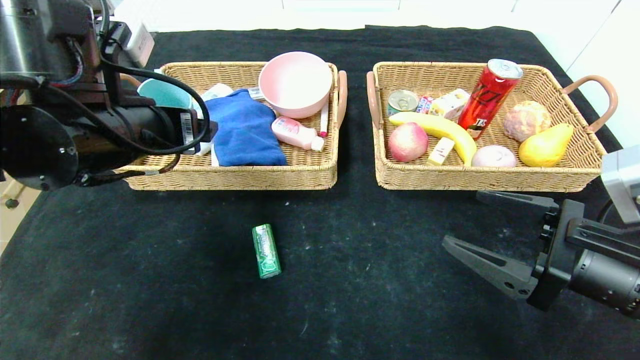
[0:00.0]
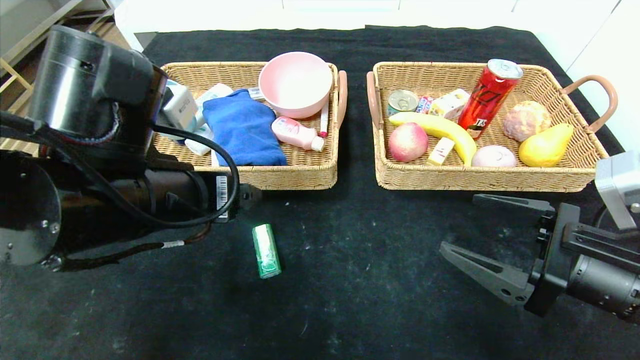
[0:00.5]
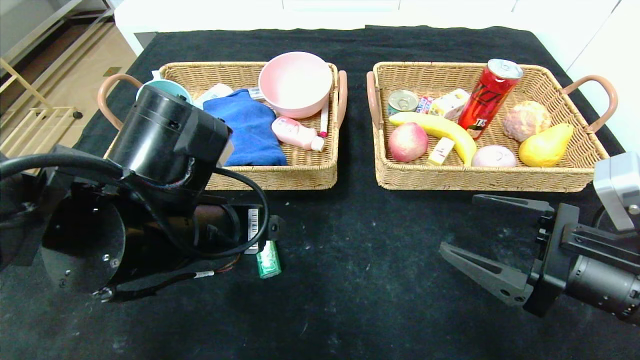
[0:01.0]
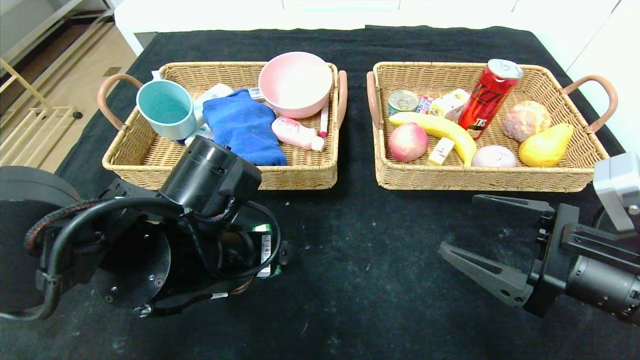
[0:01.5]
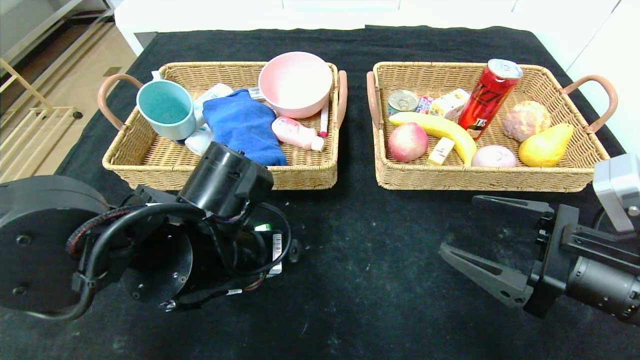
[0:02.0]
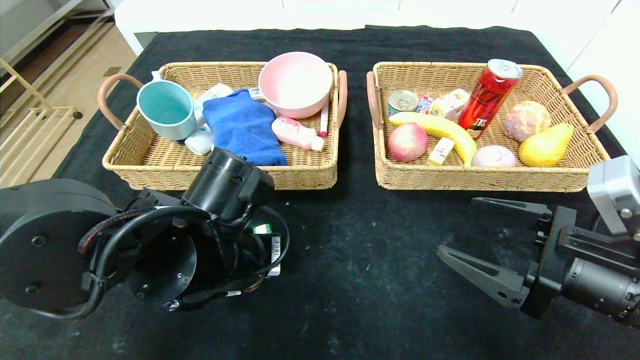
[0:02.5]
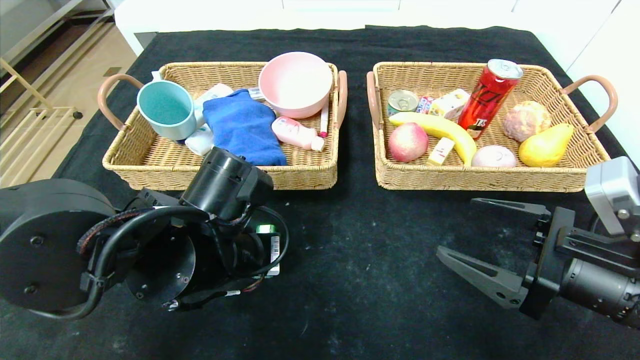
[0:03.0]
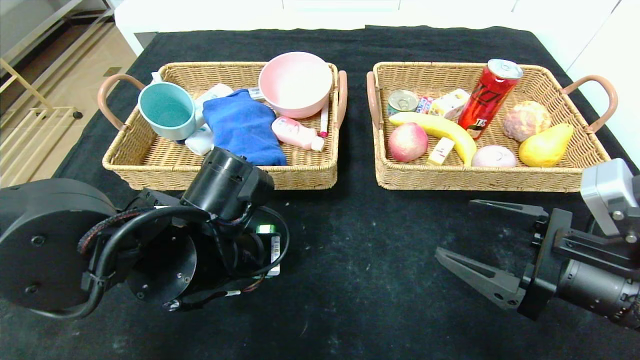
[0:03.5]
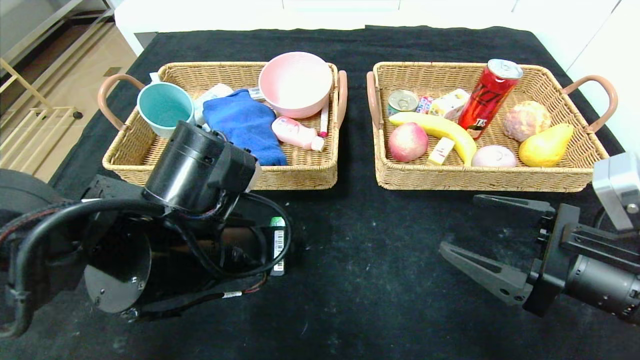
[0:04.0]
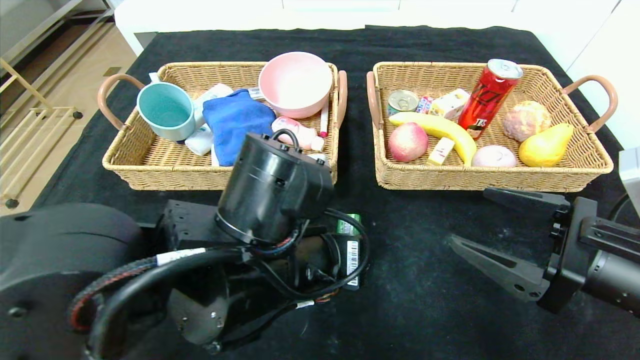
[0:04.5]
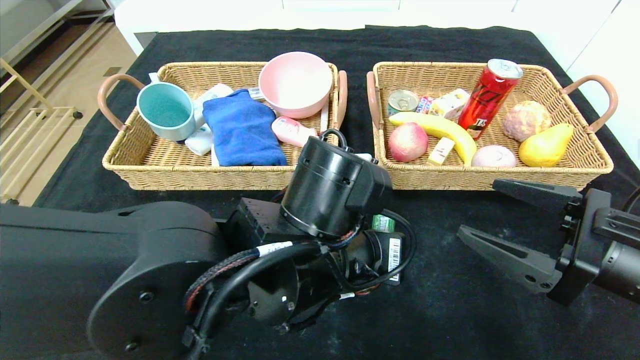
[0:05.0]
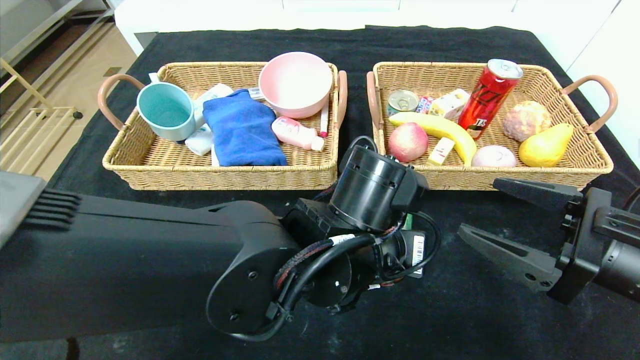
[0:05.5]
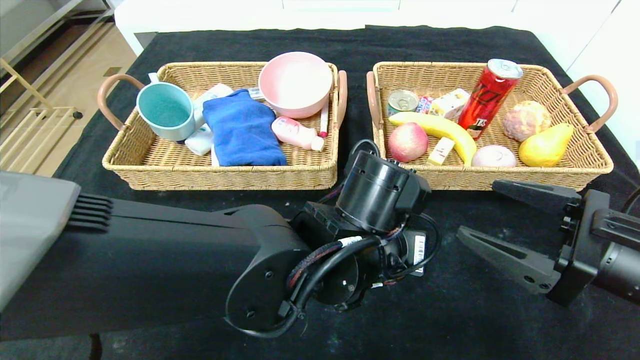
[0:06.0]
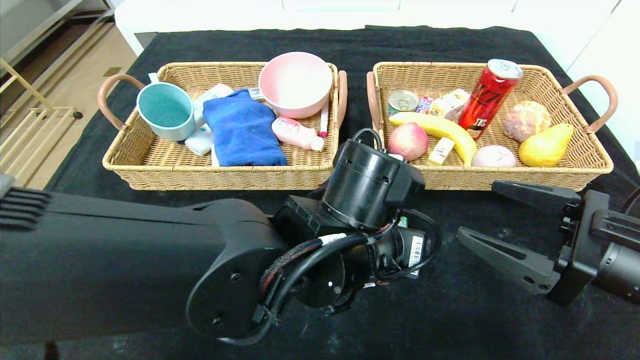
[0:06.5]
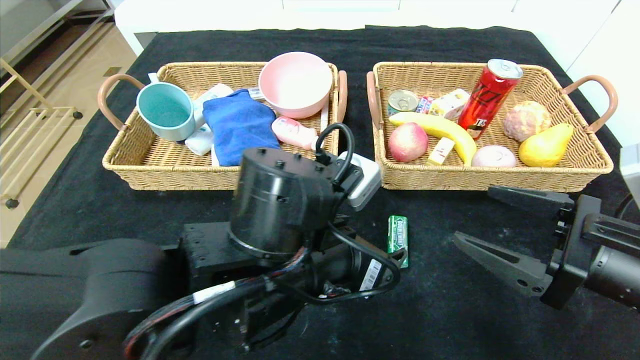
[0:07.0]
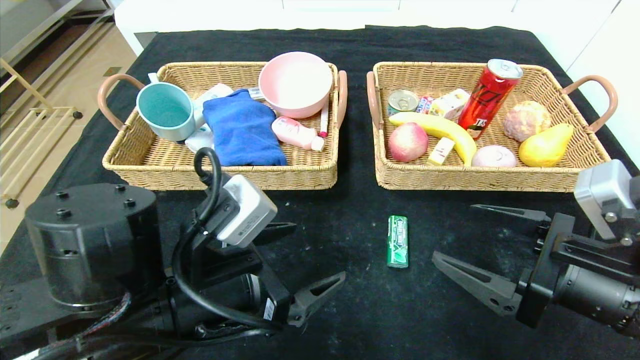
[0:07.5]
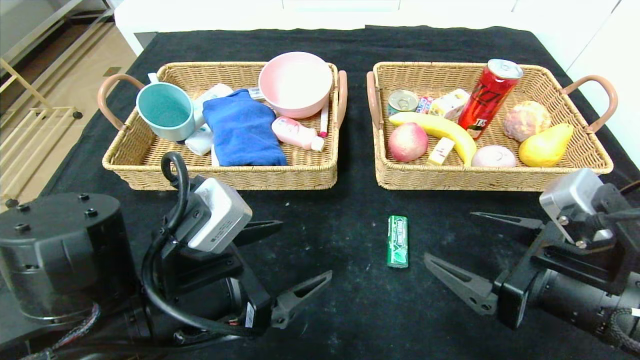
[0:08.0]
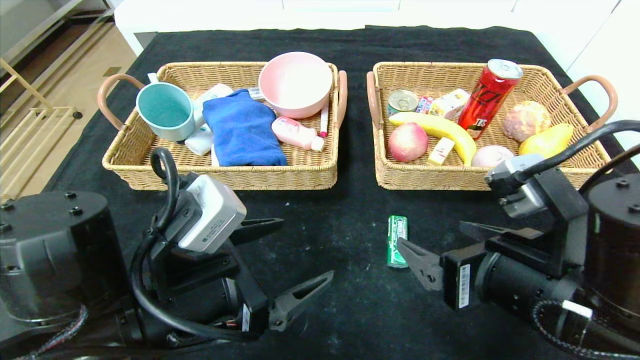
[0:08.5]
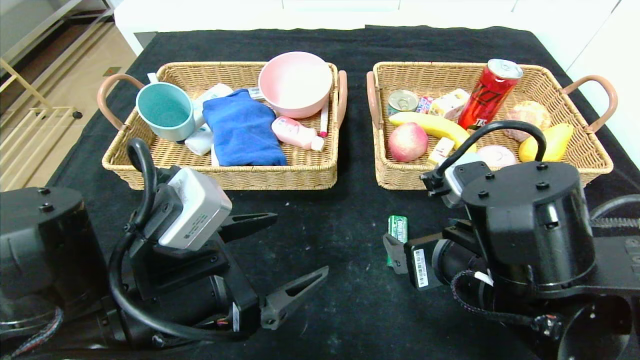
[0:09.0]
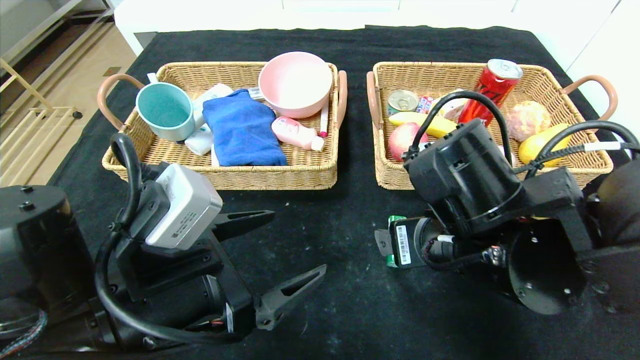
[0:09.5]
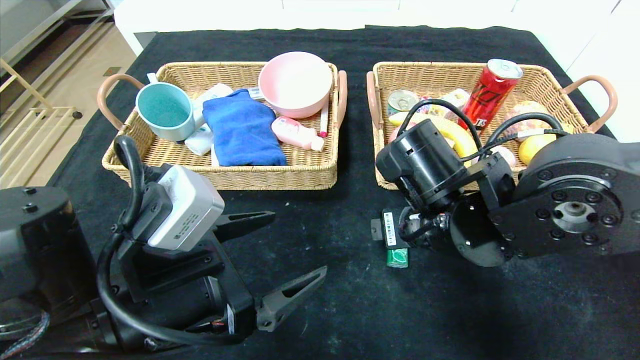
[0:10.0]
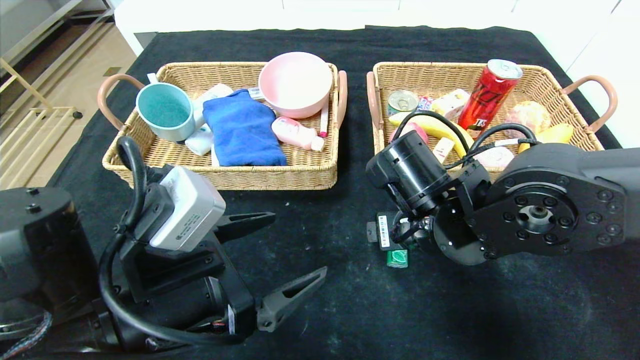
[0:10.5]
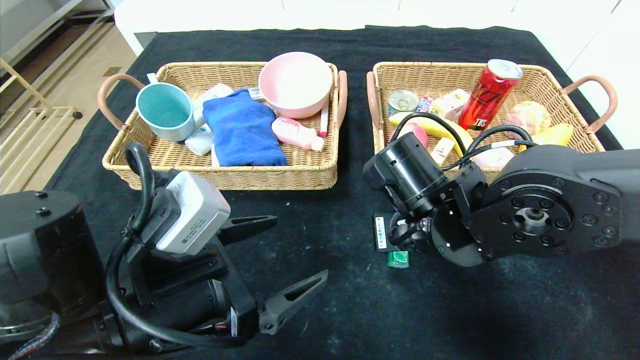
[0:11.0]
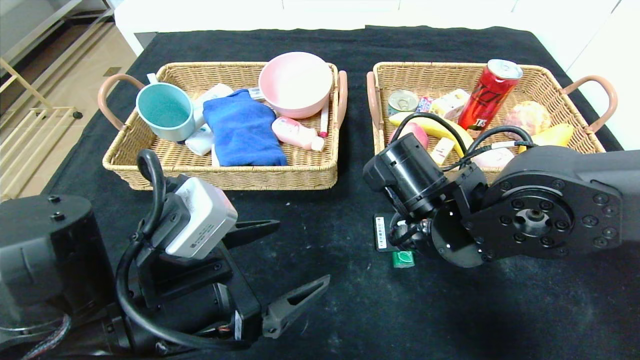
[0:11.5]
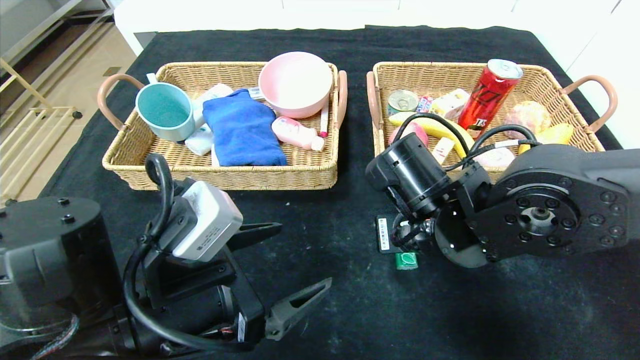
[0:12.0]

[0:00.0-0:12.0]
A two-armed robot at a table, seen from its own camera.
Step, 0:00.0 to 0:06.0: Place the green chewing gum in the center of the table.
0:00.0 to 0:02.0: The left gripper heads downward and to the right, covering approximately 15 cm.
0:02.0 to 0:04.0: The left gripper closes up.
0:04.0 to 0:06.0: The left gripper heads to the right, covering approximately 15 cm.
0:06.0 to 0:08.0: The left gripper shifts roughly 15 cm to the left, and opens.
0:08.0 to 0:10.0: The right gripper goes some 15 cm to the left and forward.
0:10.0 to 0:12.0: The right gripper closes up.

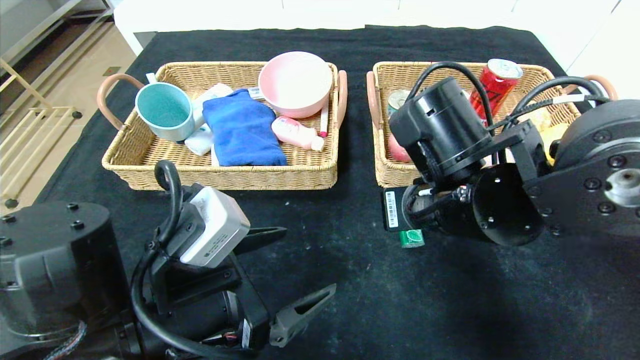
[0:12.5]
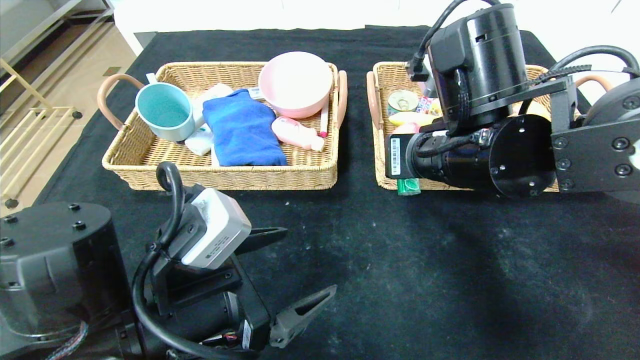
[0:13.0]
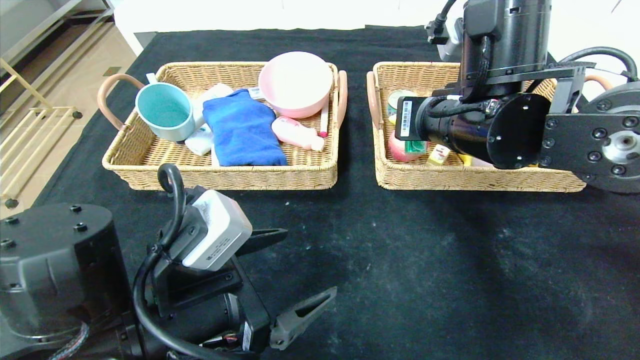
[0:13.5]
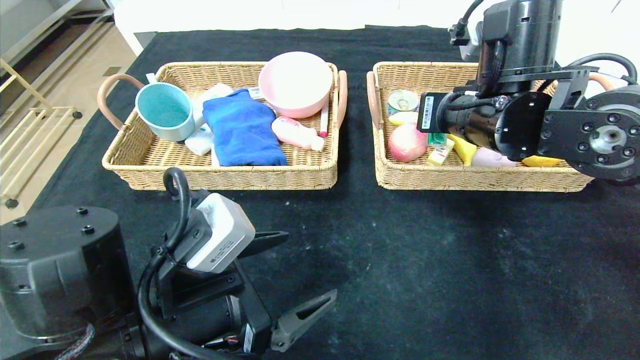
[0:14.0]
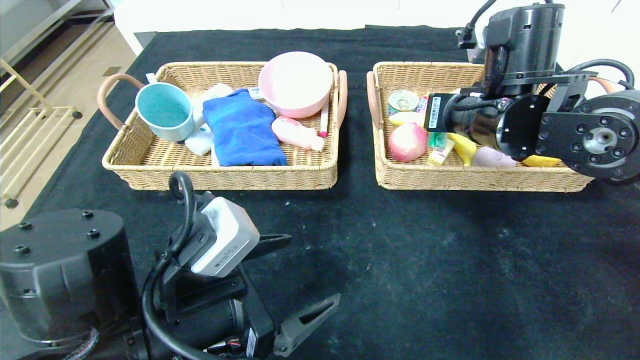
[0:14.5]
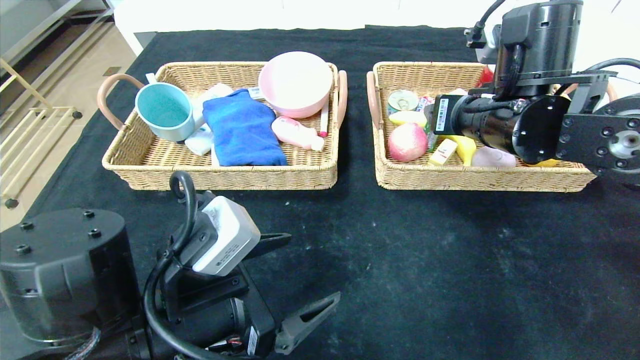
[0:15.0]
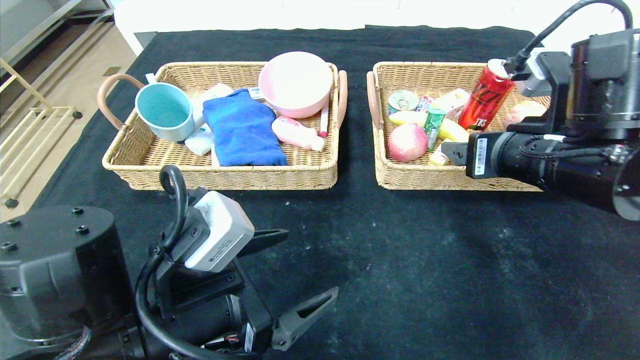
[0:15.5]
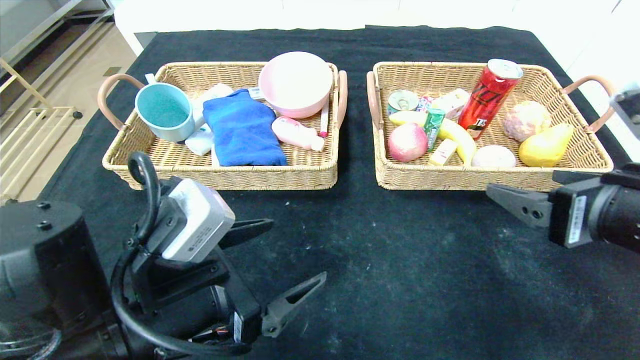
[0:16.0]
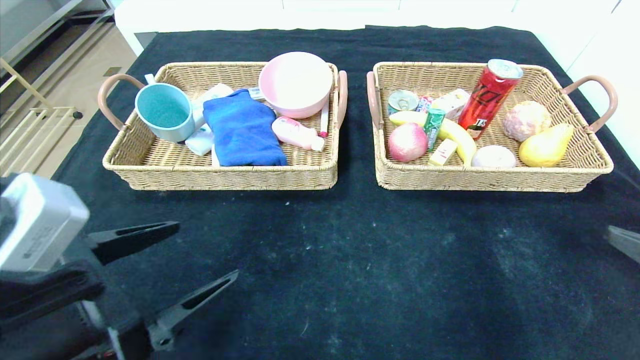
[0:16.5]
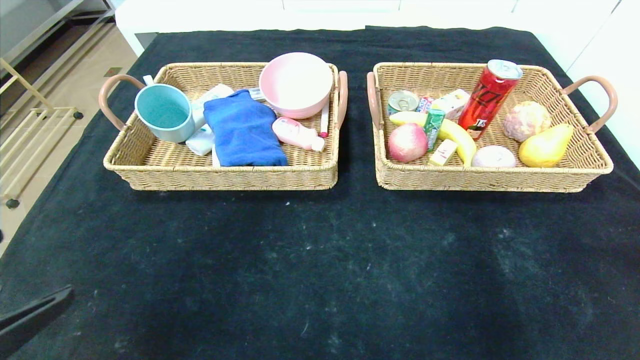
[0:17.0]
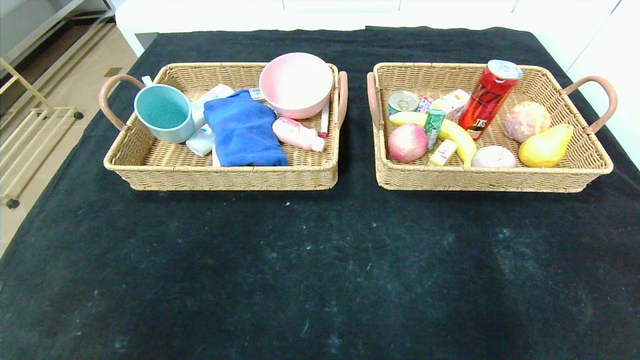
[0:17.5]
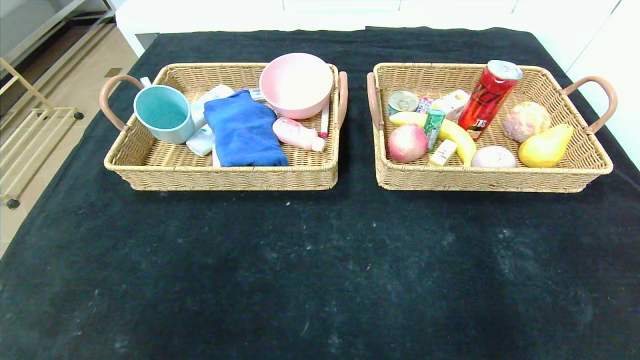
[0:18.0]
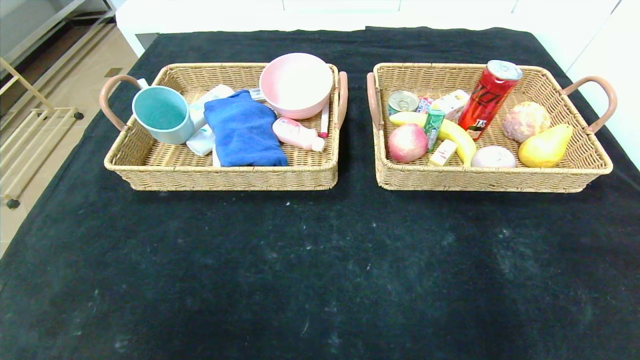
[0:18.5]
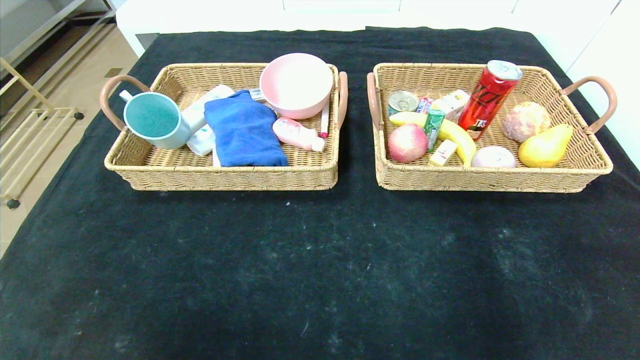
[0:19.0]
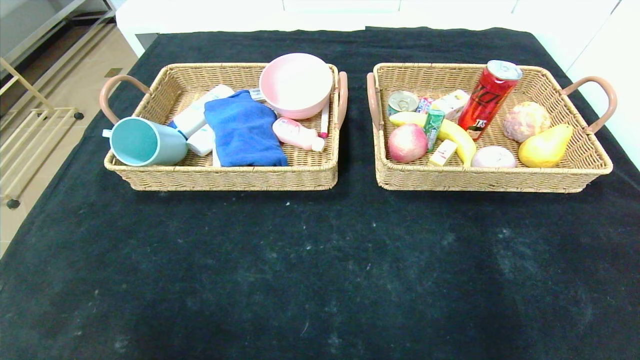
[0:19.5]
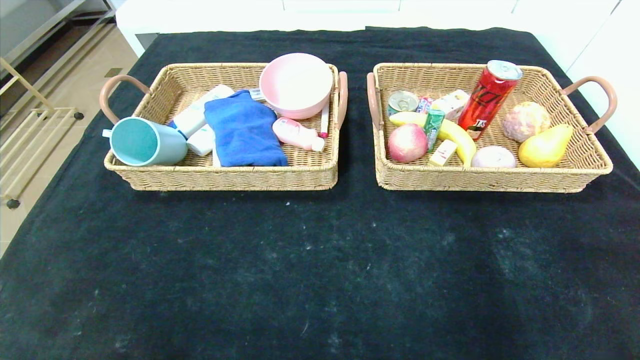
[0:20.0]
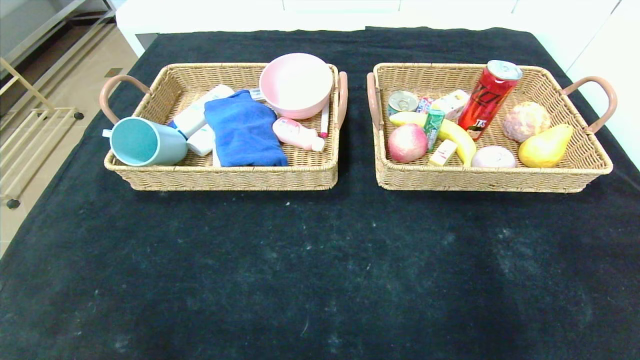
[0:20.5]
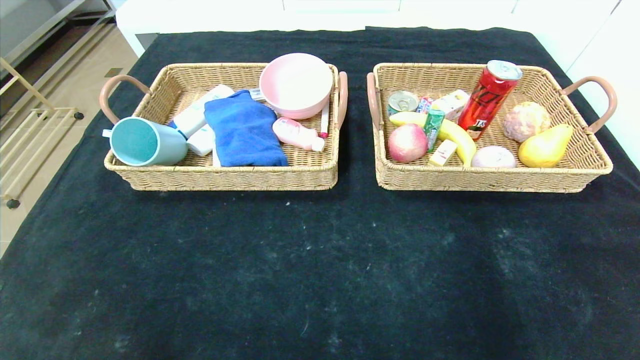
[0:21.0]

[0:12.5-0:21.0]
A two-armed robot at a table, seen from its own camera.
Step, 0:12.5 to 0:14.5: Grasp the green chewing gum and put it in the right basket.
0:12.5 to 0:14.5: The right gripper is displaced forward and to the right by some 10 cm.
0:14.5 to 0:16.5: The right gripper is displaced backward and to the right by roughly 30 cm, and opens. Meanwhile the left gripper heads to the left, covering approximately 5 cm.
0:16.5 to 0:19.0: The left gripper is displaced backward by about 20 cm, while the right gripper is displaced backward and downward by some 20 cm.
0:19.0 to 0:21.0: The left gripper is displaced downward and forward by approximately 15 cm.
